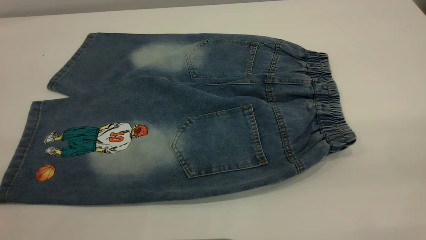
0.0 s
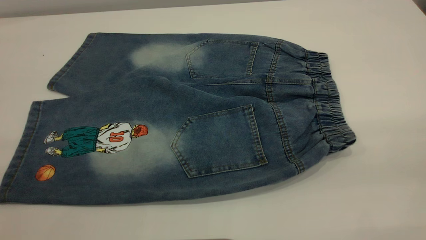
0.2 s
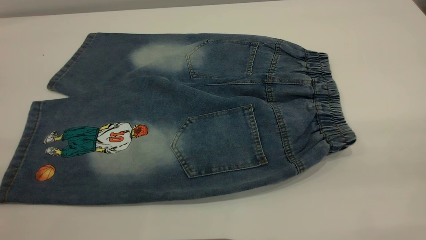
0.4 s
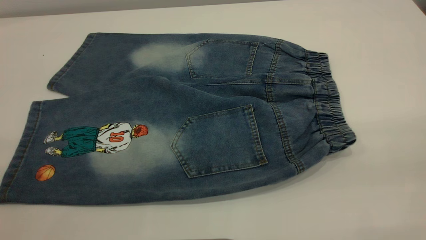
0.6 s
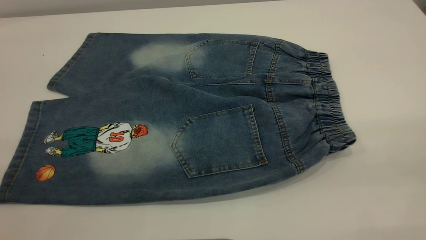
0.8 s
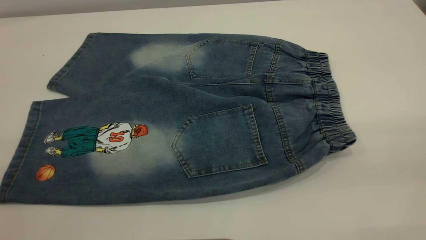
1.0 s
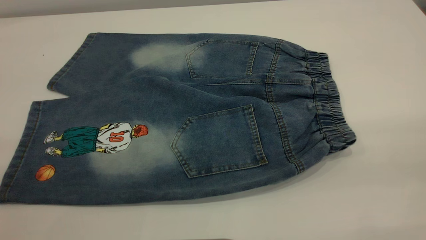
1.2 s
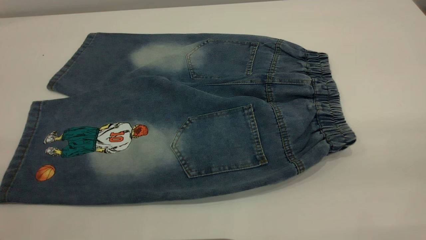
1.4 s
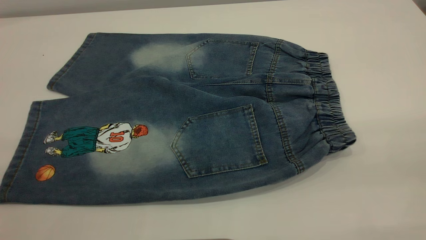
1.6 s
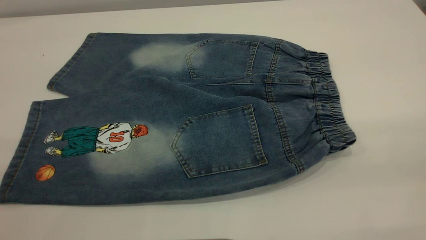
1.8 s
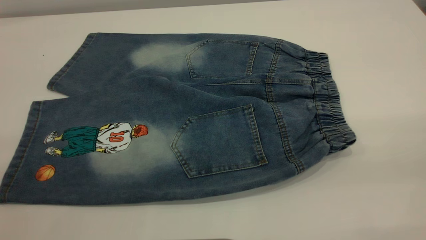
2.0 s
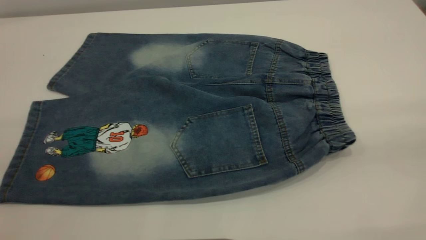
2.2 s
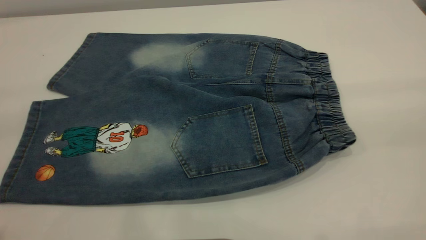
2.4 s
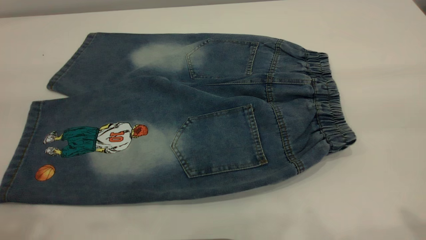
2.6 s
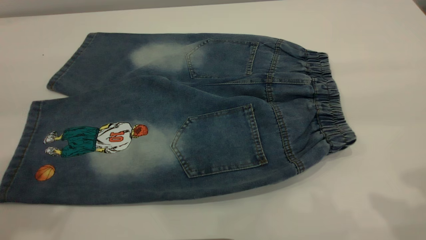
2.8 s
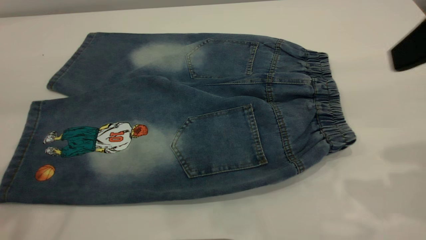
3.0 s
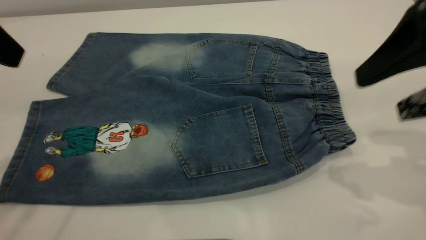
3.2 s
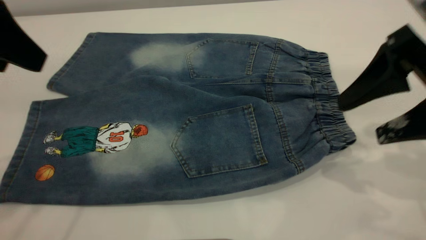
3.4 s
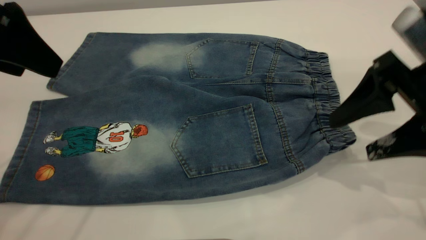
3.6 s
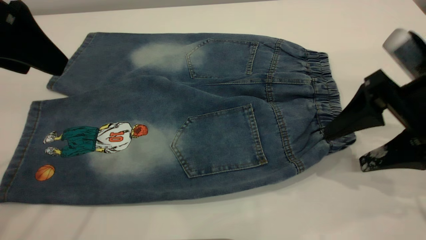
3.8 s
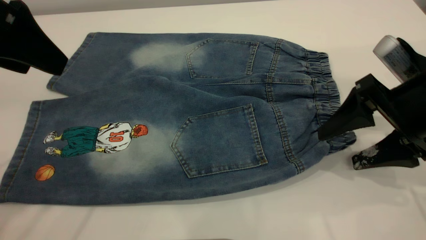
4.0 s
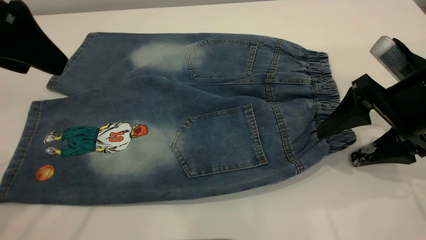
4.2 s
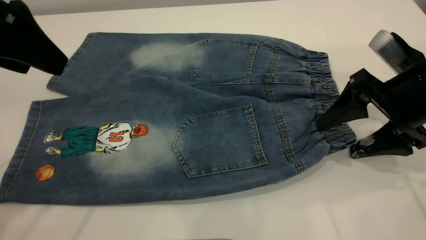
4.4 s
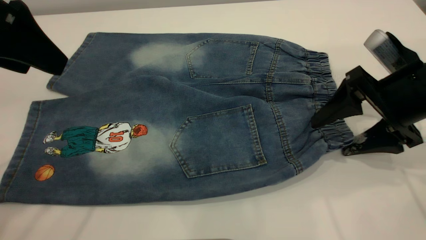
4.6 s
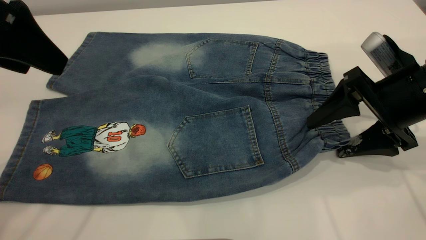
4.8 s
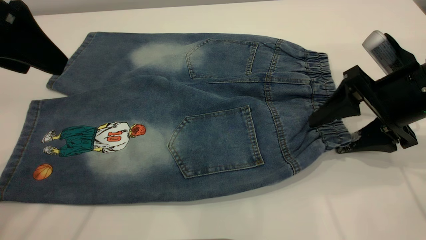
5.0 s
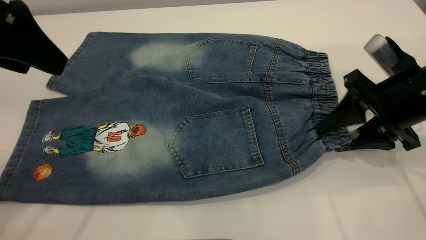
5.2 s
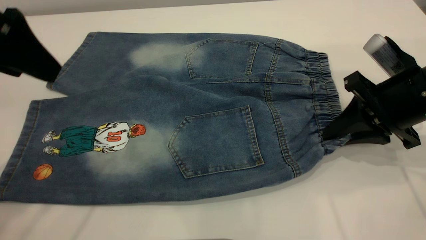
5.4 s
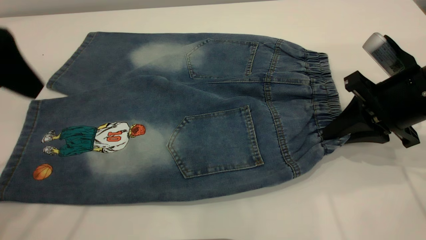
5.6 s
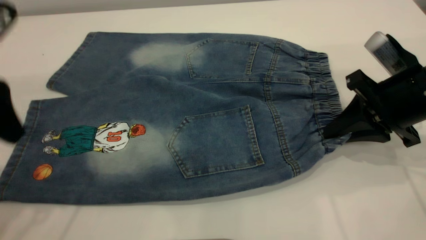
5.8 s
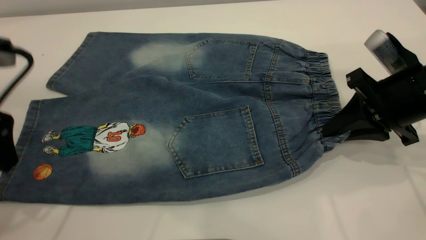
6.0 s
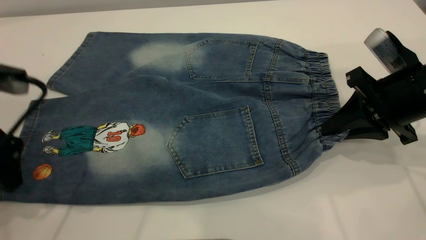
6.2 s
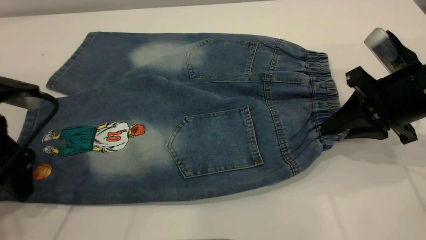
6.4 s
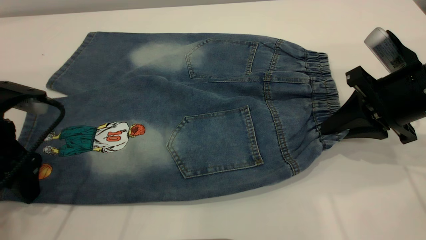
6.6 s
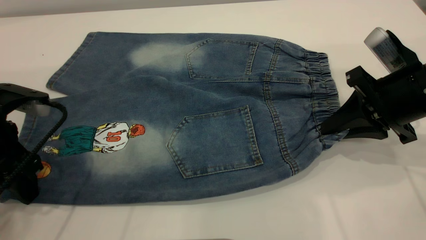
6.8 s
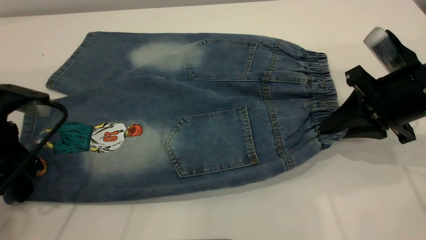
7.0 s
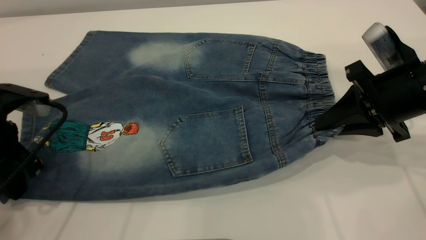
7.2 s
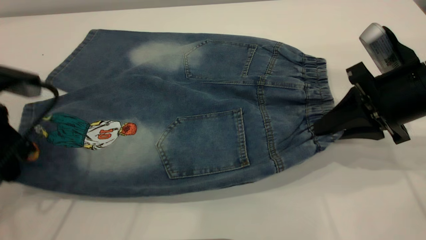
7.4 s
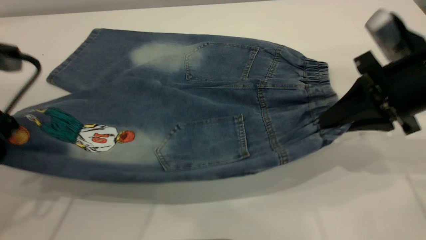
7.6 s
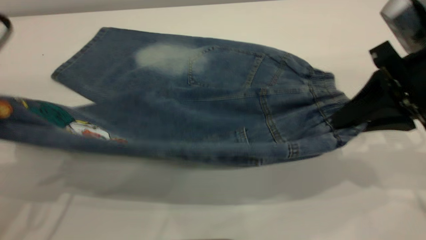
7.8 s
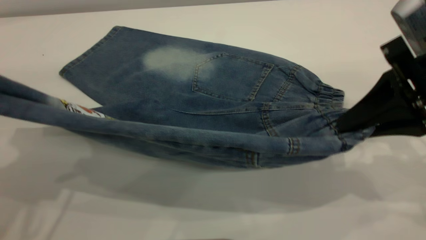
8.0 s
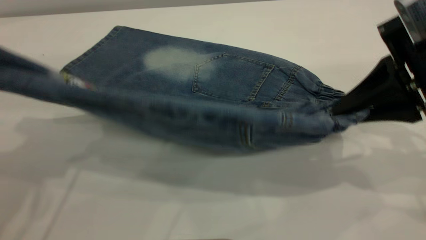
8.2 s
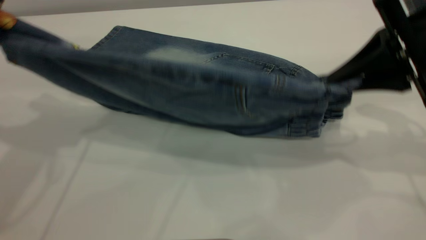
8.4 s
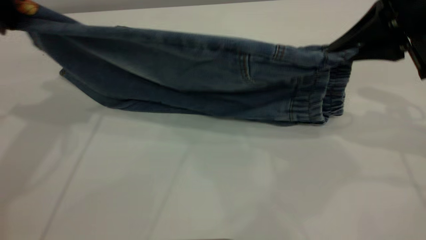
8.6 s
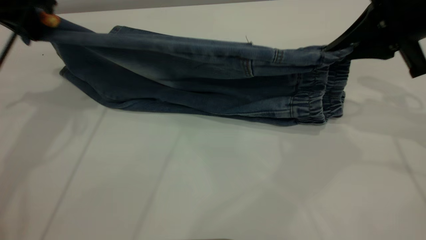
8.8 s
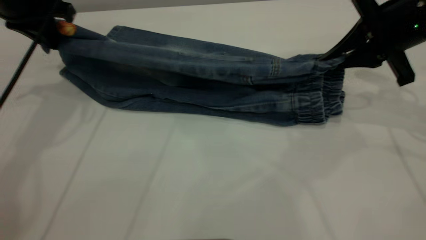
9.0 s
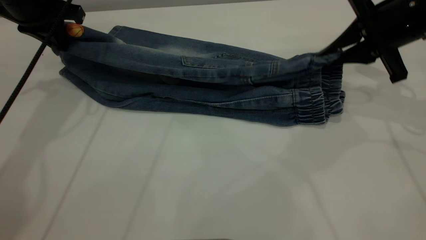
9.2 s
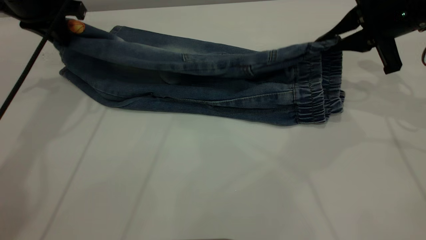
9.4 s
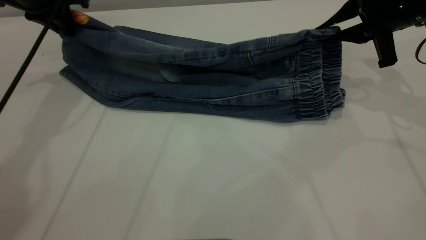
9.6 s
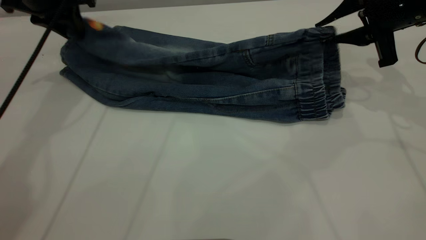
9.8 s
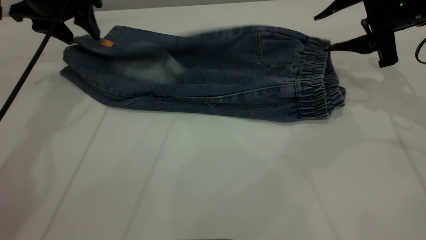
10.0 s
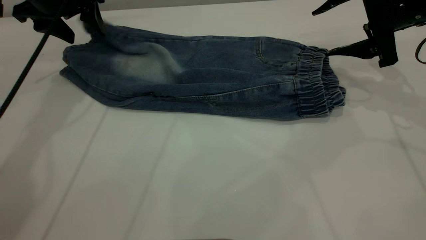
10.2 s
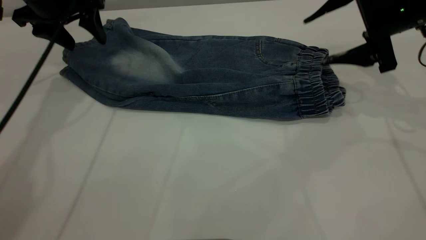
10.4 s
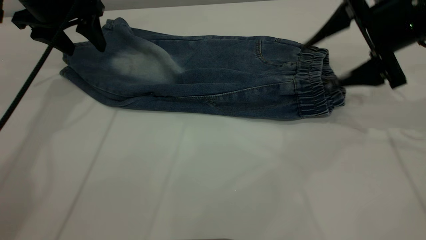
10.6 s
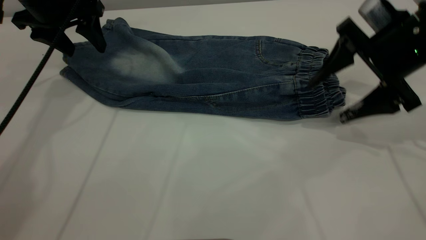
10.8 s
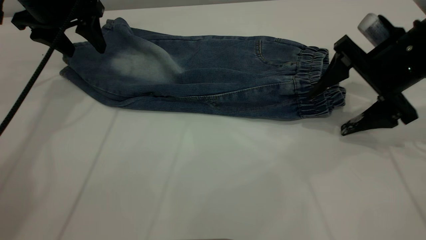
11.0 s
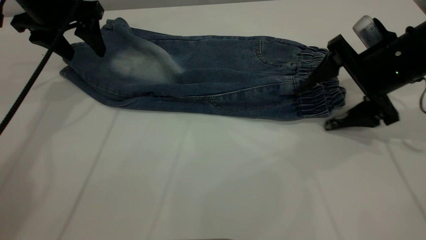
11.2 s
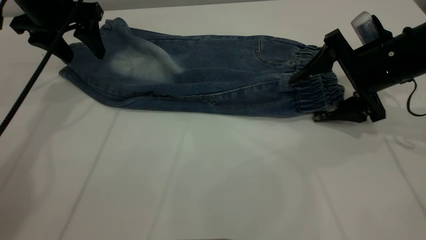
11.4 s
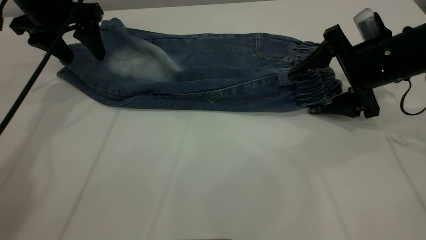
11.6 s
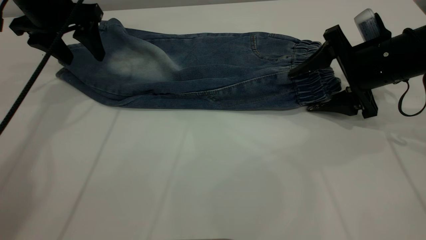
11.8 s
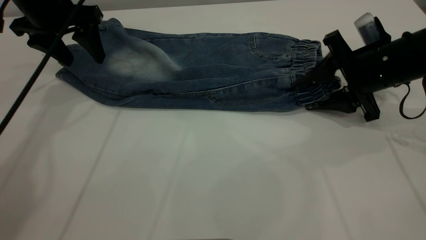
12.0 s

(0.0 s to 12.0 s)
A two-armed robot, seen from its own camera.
Step, 0.0 s - 10.2 s: Fold the bottom of the pants upward.
0.0 s - 1.6 s: Both grippers stay about where they are.
1.6 s - 3.0 s: The right gripper heads forward, covering roughly 20 cm, and opens its fingers.
3.0 s - 4.4 s: The left gripper shifts by approximately 5 cm. The right gripper is displaced downward and forward by some 15 cm.
4.4 s - 6.0 s: The left gripper heads downward, covering roughly 10 cm, while the right gripper closes up.
6.0 s - 7.6 s: The left gripper closes.
7.6 s - 9.0 s: The right gripper heads forward, covering about 10 cm. Meanwhile the left gripper is displaced forward by about 15 cm.
9.0 s - 10.4 s: The left gripper opens. Meanwhile the right gripper opens.
10.4 s - 12.0 s: The right gripper shifts some 10 cm downward, and closes its fingers.

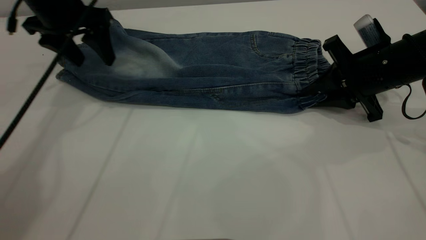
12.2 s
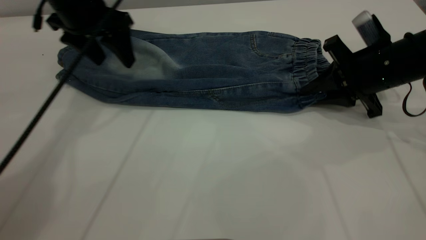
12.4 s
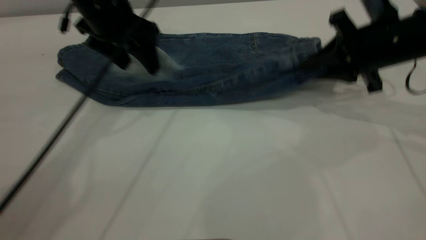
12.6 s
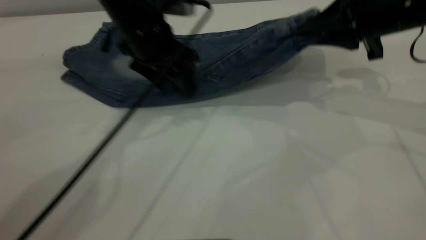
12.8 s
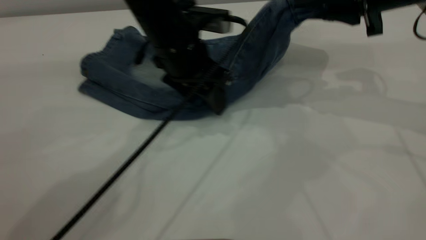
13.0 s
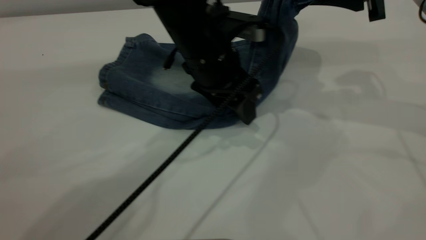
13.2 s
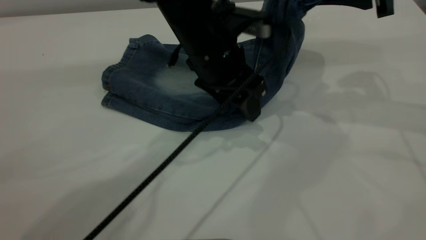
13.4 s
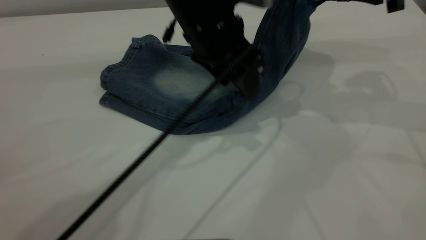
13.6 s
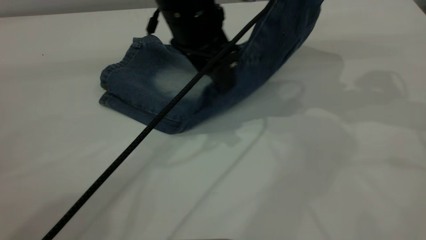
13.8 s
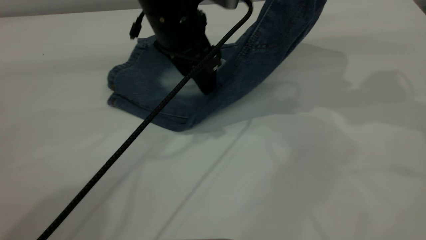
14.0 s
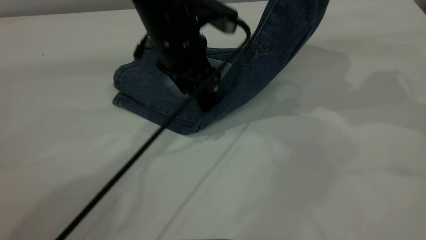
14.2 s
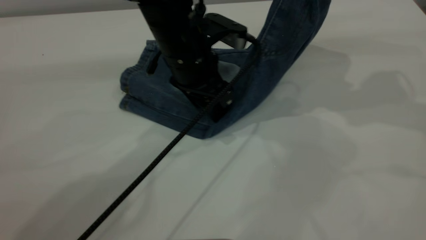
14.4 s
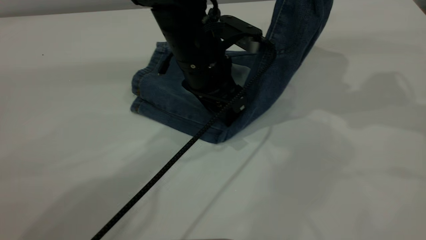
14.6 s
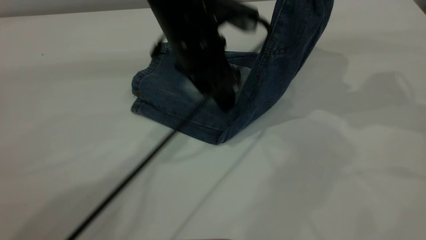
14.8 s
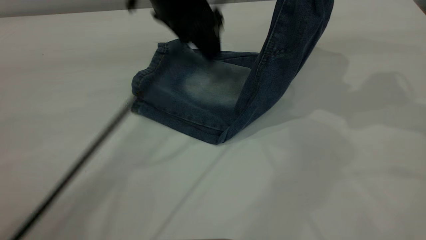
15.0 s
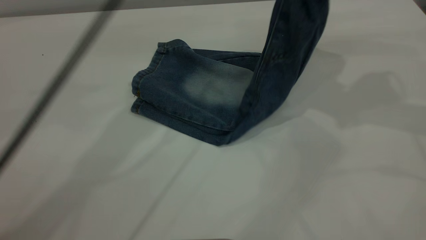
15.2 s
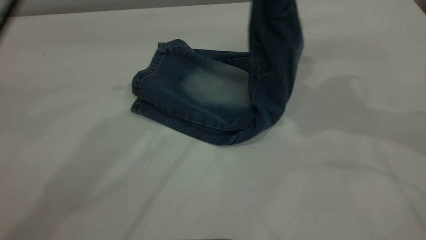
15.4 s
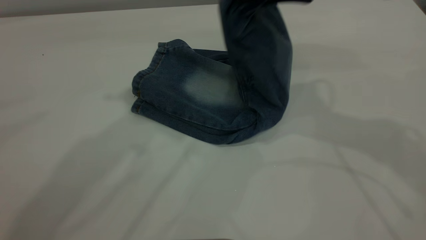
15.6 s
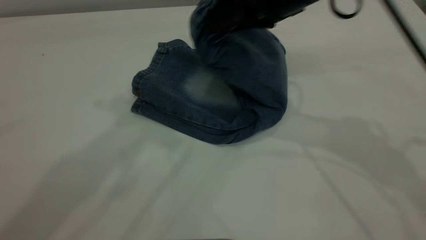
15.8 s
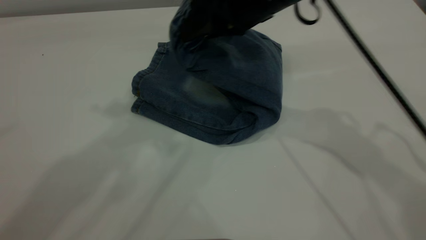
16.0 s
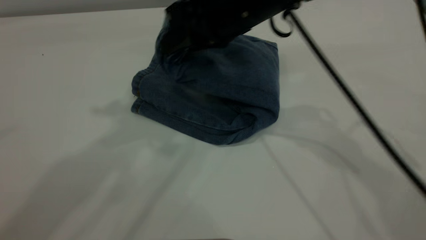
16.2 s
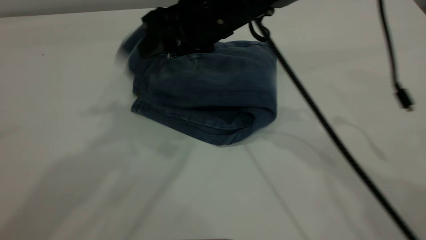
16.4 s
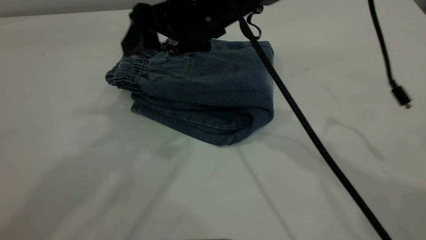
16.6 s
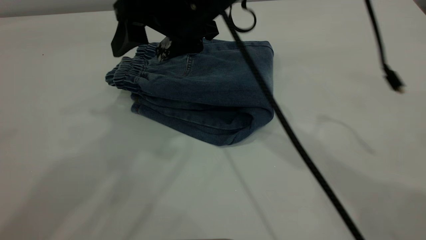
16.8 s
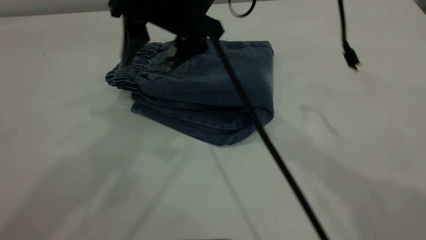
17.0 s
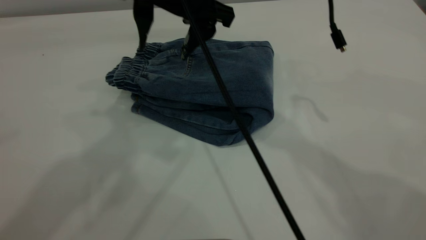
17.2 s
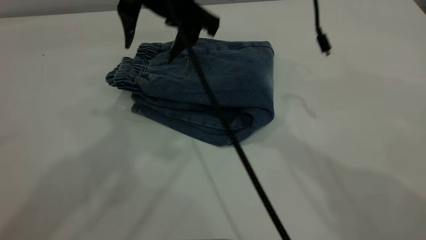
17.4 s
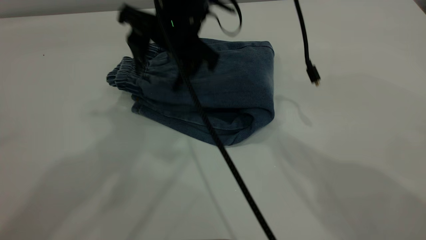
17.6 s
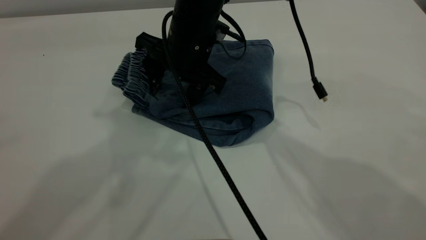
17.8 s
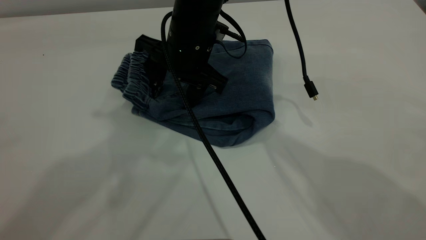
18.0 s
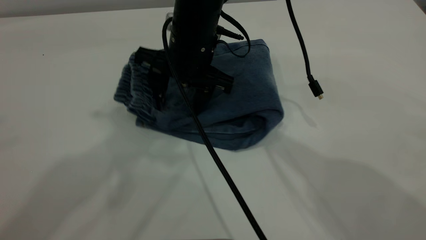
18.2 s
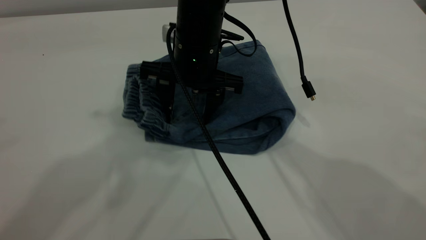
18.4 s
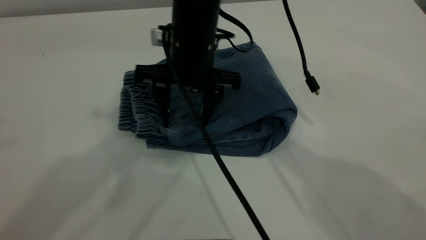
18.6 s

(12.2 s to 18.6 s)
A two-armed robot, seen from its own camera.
Step, 12.2 s - 16.6 s: Fold your pants from right to left.
12.2 s - 13.8 s: The left gripper travels to the right by roughly 20 cm; the right gripper shifts roughly 20 cm upward.
13.8 s - 15.4 s: The right gripper goes some 10 cm to the left, while the left gripper is displaced upward and to the left by roughly 20 cm.
15.4 s - 17.0 s: The left gripper goes some 10 cm upward and backward; the right gripper travels to the left by approximately 20 cm, and opens up.
17.0 s - 18.6 s: The right gripper heads downward, covering approximately 5 cm.
